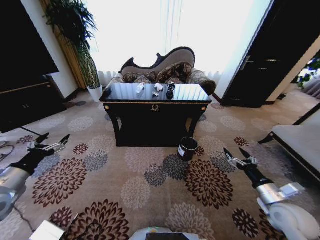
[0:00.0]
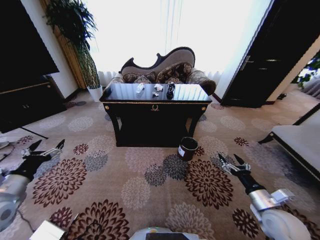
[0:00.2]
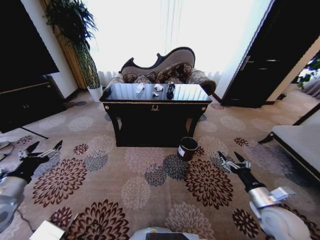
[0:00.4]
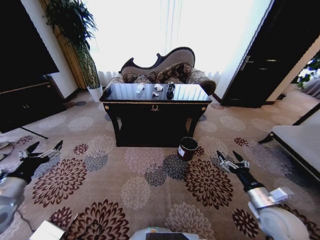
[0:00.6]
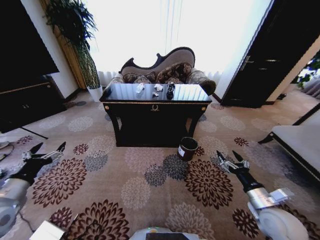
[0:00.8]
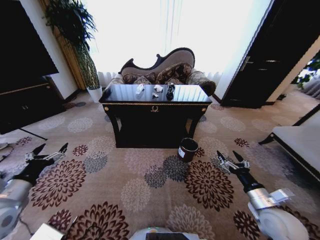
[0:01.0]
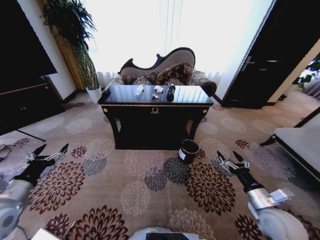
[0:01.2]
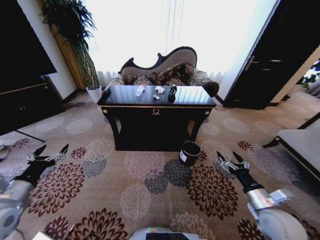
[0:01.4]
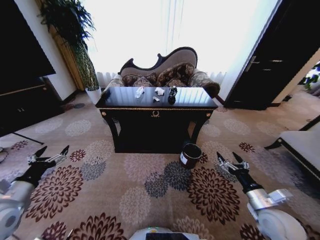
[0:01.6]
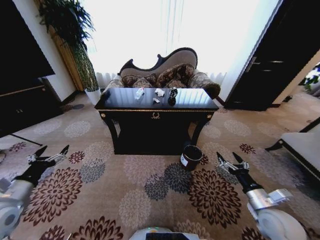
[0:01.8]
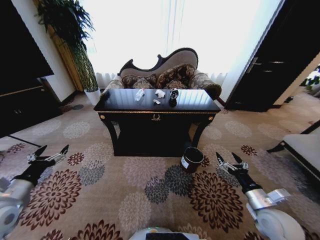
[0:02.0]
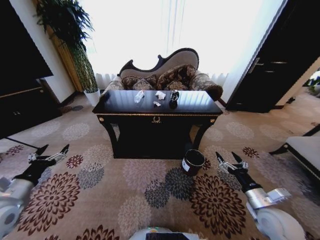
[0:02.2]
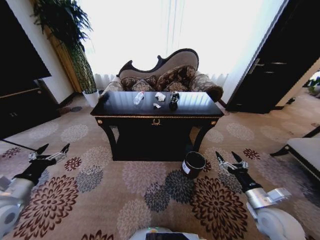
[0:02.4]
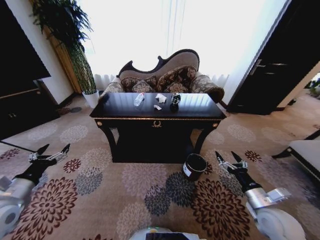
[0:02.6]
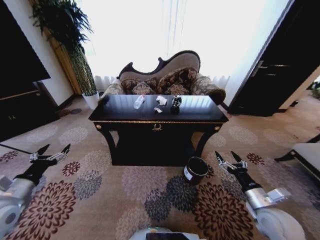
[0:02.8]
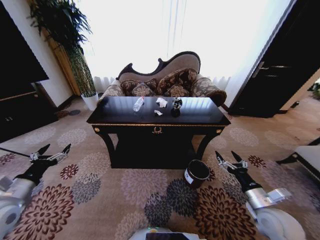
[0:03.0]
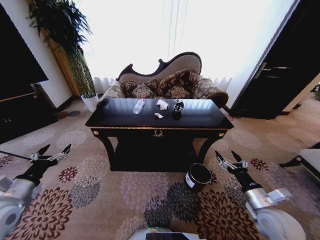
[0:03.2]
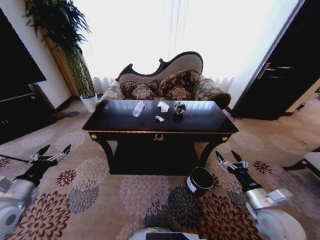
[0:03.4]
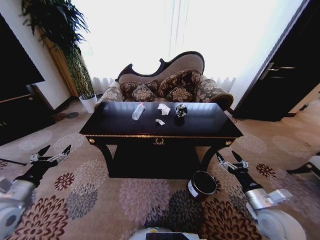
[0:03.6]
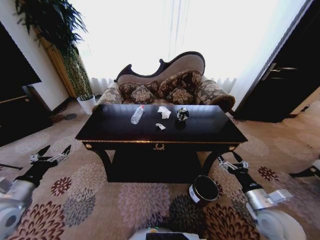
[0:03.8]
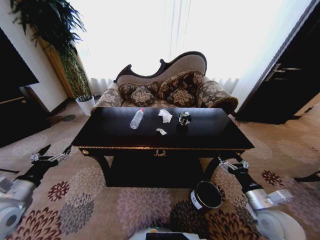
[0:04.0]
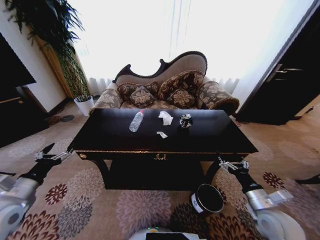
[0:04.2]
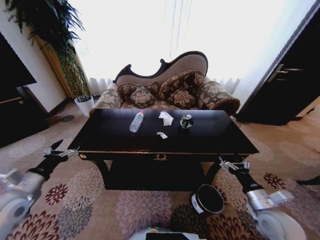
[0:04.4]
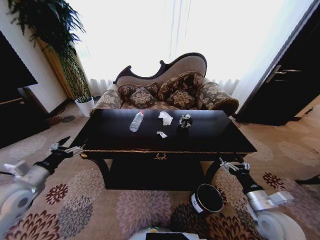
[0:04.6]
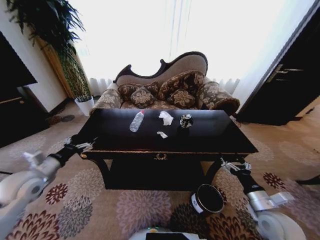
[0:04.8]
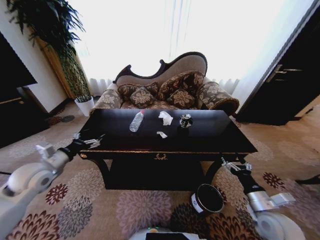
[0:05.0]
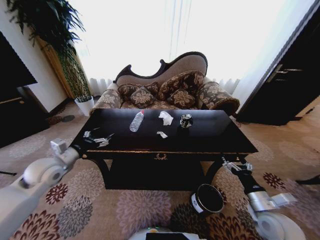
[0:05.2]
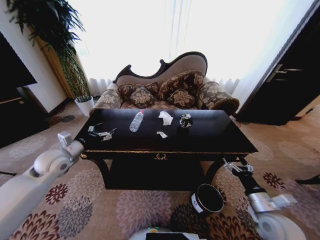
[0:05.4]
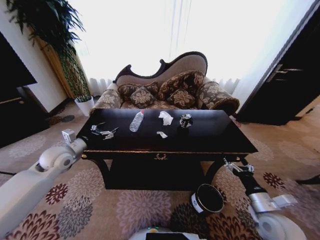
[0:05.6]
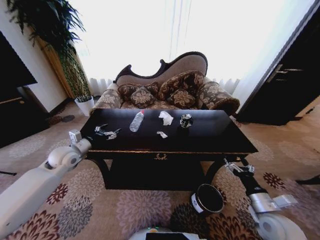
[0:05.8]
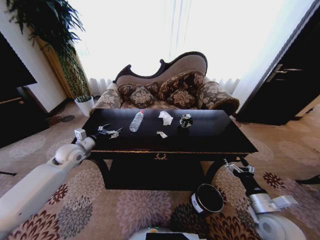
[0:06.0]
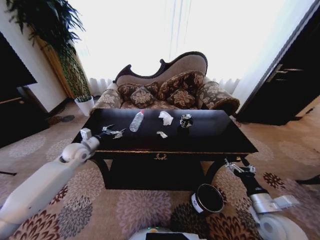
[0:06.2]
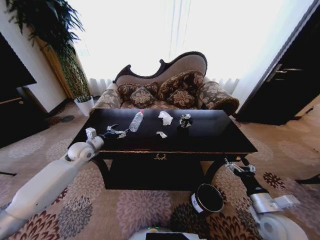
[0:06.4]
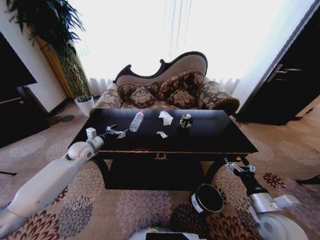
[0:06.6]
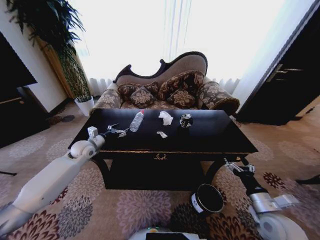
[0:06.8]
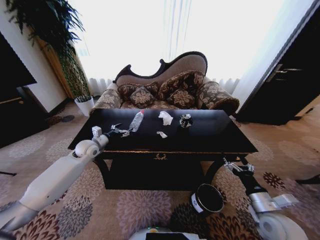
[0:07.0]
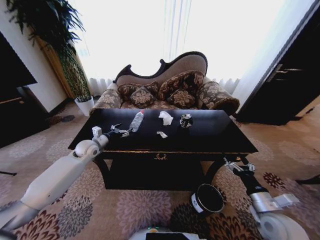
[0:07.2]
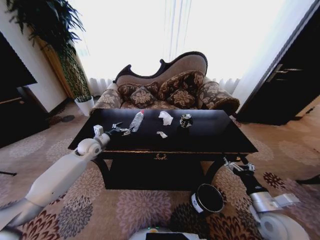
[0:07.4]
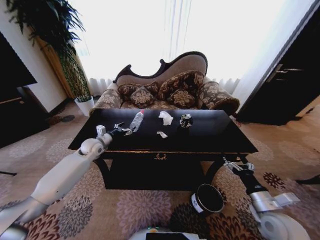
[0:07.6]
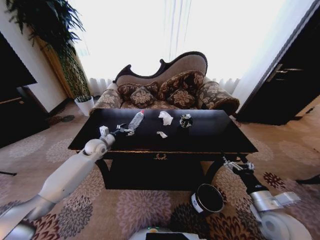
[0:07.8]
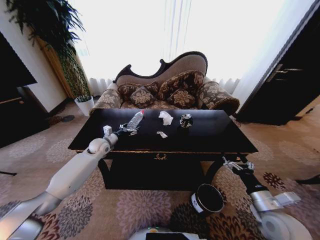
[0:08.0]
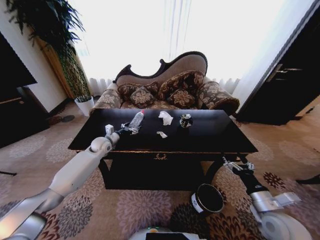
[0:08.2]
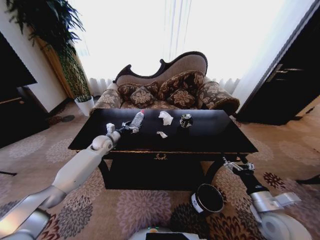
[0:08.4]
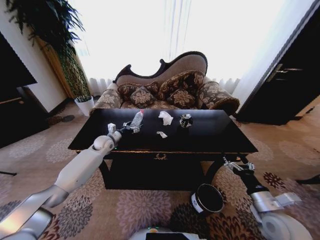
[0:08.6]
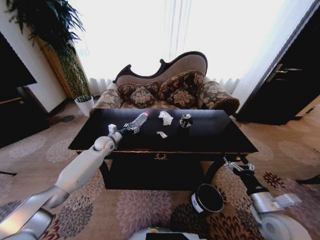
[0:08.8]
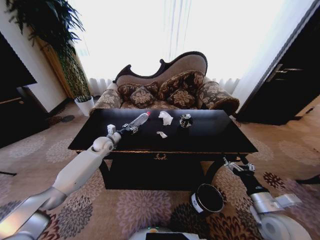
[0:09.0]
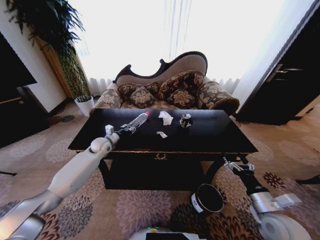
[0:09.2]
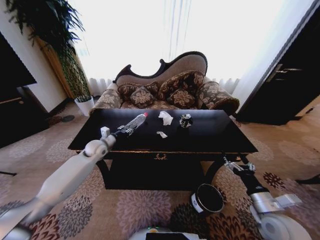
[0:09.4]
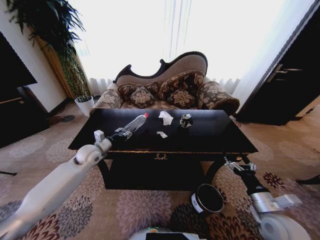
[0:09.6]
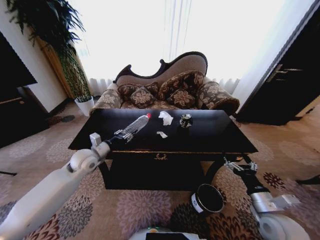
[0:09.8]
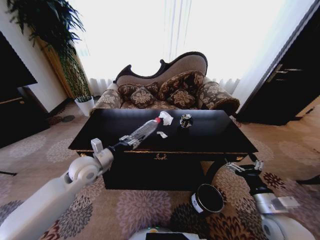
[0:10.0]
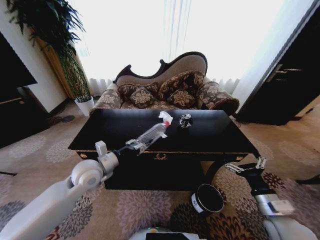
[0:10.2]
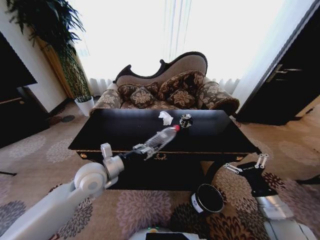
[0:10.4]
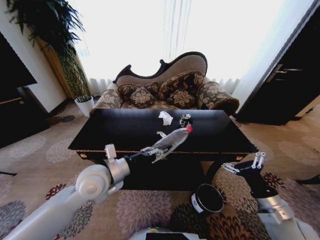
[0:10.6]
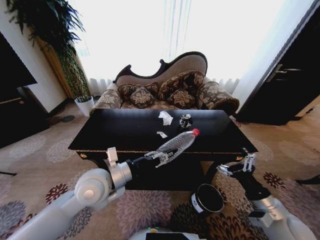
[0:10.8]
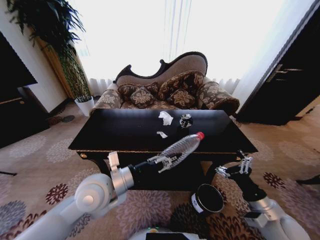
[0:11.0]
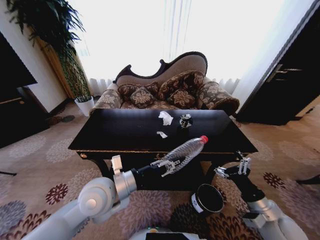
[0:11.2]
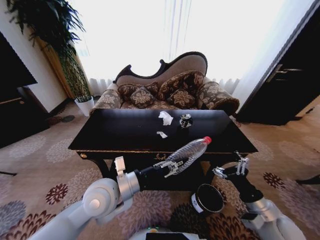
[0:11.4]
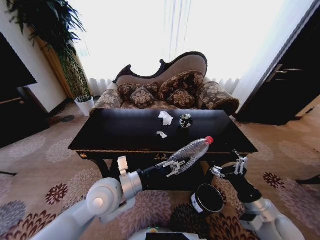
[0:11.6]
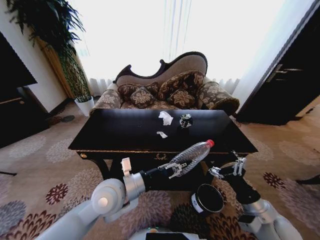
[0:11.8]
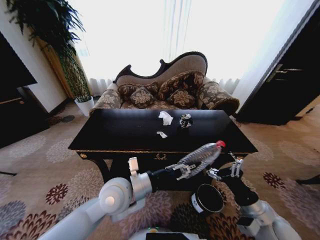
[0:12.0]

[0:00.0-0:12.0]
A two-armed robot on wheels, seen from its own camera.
Task of the whole recording: Move to the front of the table and place the trash on the table into the trash bin.
0:04.4 to 0:06.0: The left gripper moves forward, roughly 20 cm.
0:06.0 to 0:07.6: The left gripper travels forward and to the right by roughly 10 cm.
0:07.6 to 0:09.0: The left gripper changes place by about 5 cm, and closes up.
0:09.0 to 0:10.4: The left gripper shifts some 25 cm backward and upward.
0:10.4 to 0:12.0: The left gripper shifts approximately 10 cm to the right and backward.

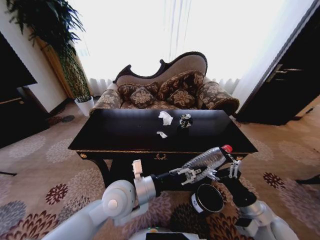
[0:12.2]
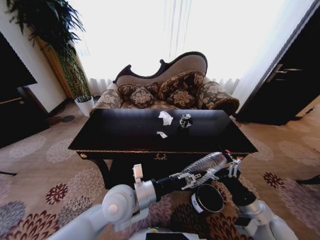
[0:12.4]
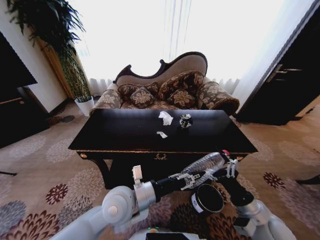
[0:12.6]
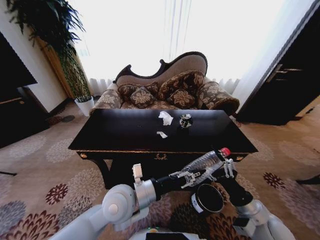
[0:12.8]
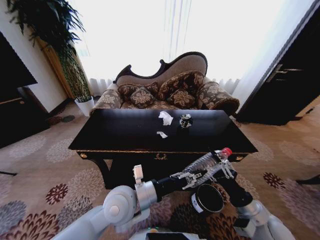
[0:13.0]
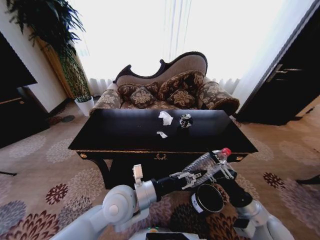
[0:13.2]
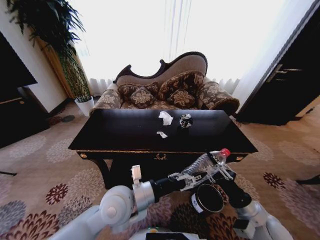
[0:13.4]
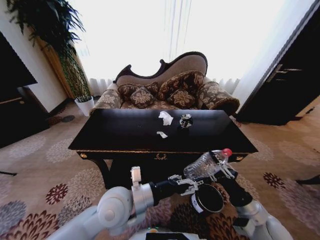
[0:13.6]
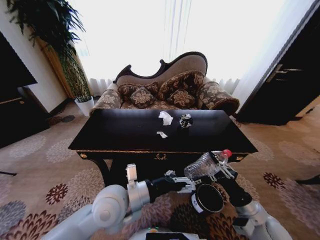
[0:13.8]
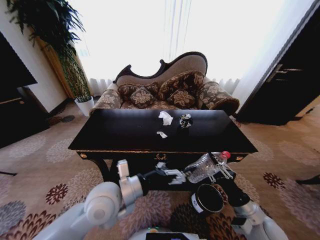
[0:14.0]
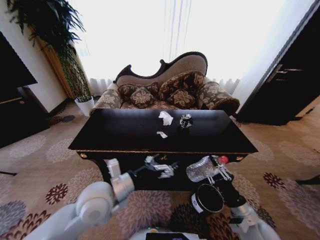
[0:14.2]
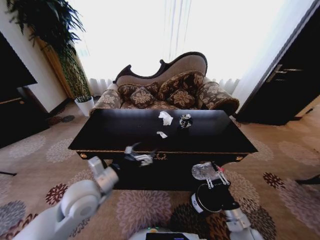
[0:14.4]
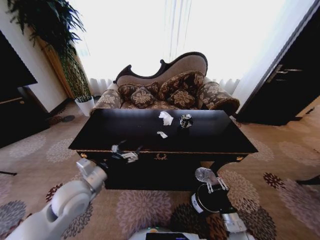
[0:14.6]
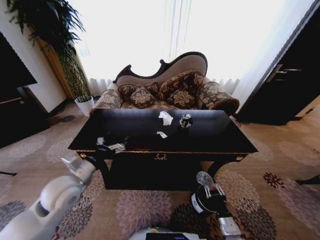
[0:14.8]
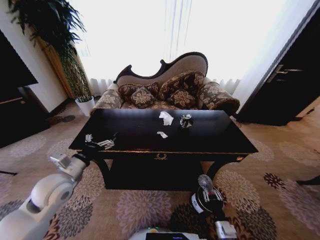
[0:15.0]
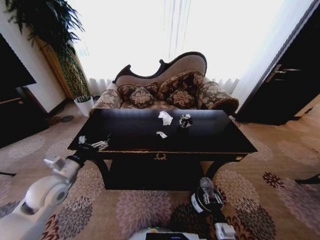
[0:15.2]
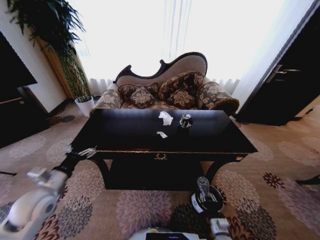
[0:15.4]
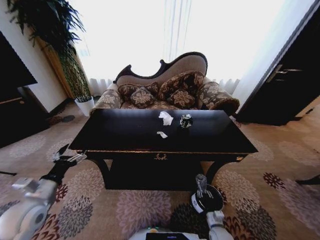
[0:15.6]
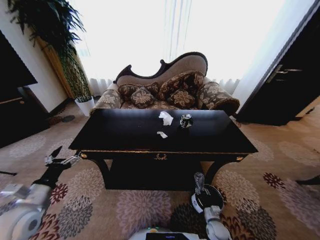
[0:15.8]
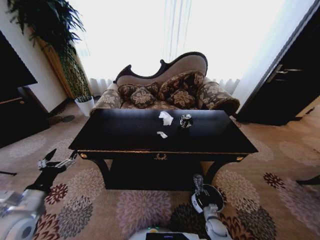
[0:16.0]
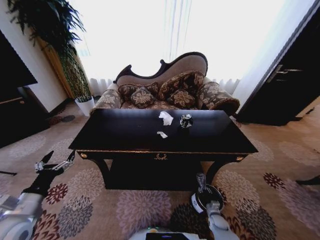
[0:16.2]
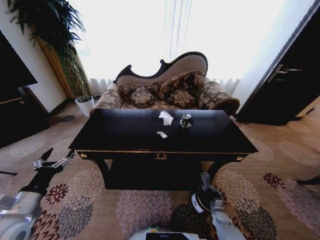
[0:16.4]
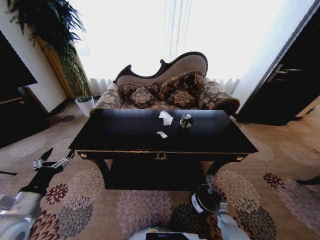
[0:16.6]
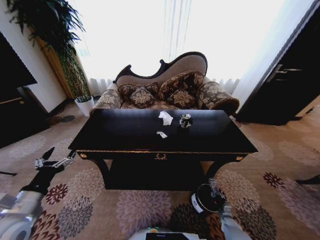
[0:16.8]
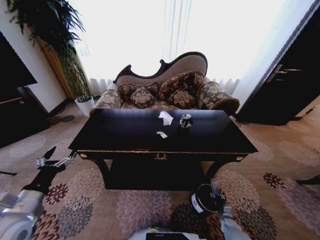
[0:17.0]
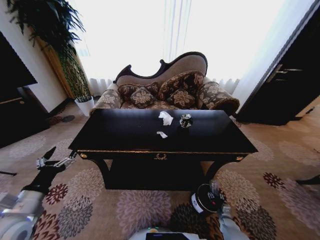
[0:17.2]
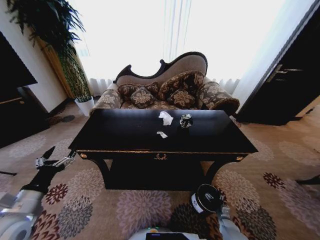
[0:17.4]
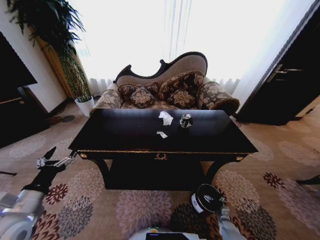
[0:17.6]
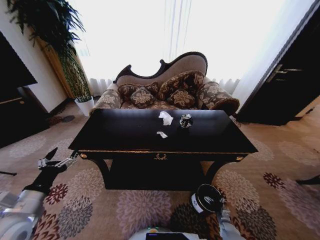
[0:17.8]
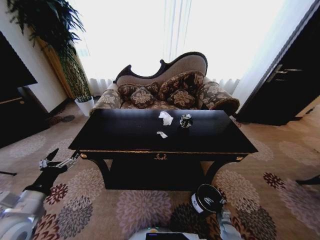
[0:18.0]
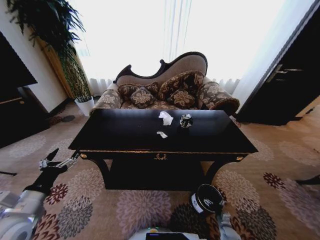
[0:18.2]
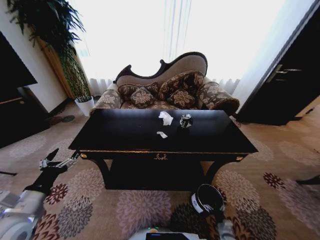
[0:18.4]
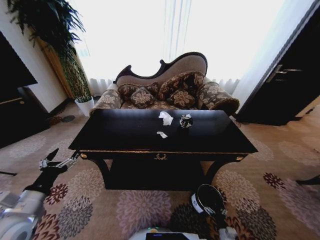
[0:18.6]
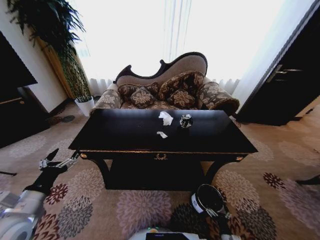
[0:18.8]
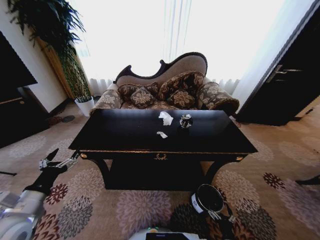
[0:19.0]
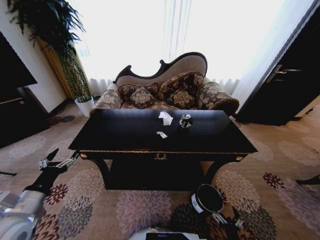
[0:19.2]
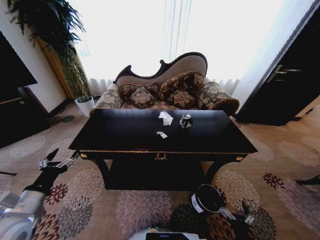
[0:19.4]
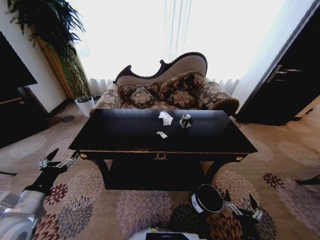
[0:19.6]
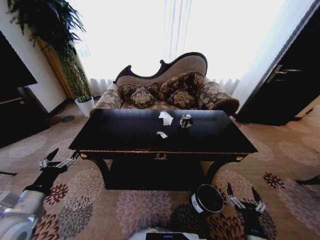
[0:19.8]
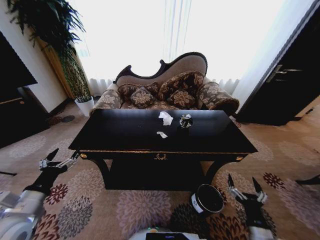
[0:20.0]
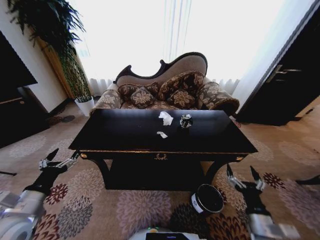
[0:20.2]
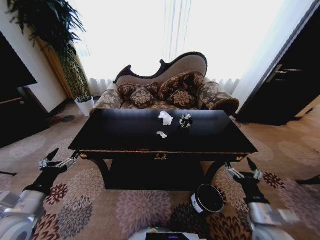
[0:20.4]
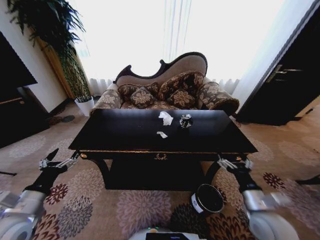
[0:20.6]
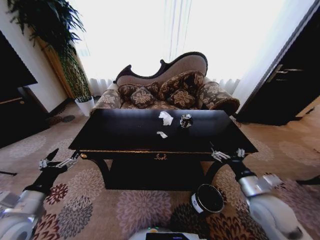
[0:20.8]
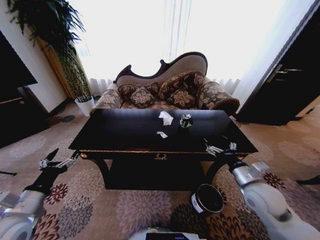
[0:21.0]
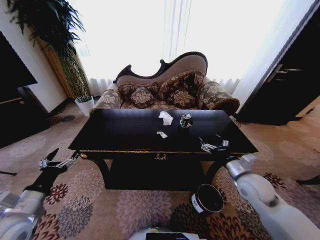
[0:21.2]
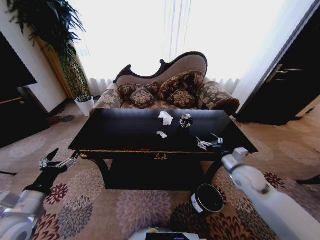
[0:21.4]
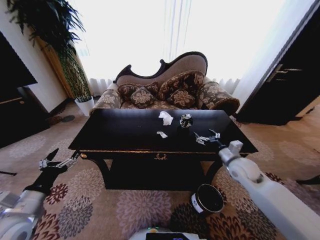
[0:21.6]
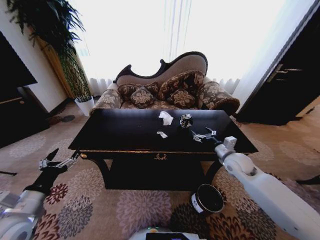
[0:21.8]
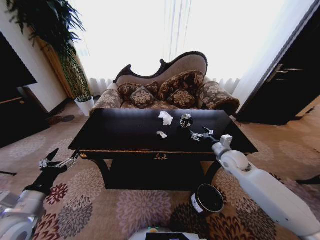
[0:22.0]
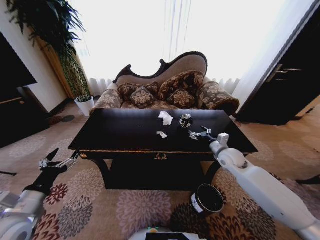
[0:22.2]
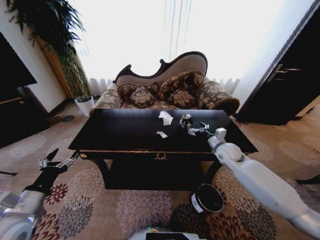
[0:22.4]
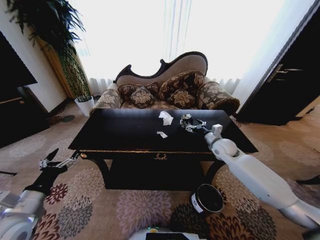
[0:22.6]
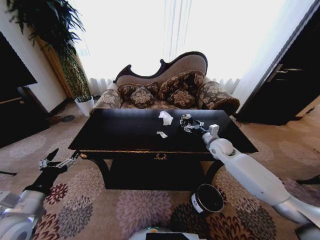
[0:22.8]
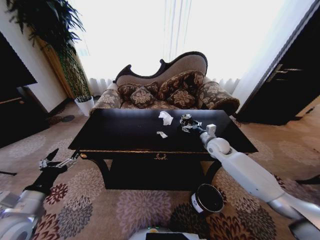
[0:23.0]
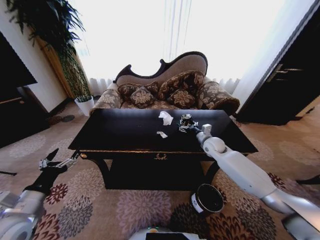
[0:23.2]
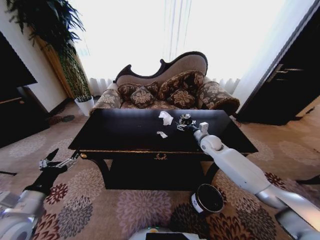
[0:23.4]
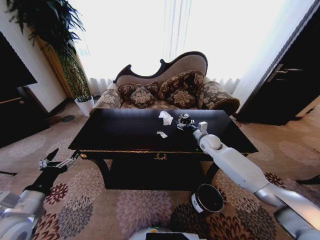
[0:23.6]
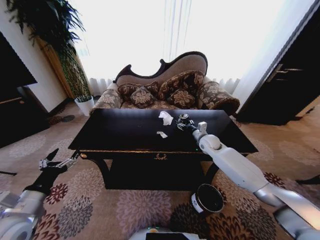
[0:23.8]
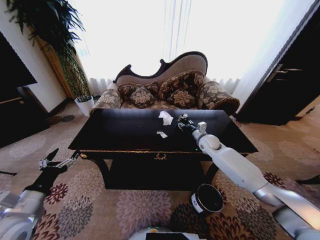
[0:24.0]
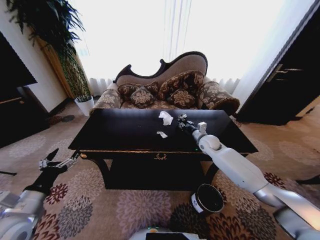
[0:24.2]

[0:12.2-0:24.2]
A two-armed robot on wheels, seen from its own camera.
Task of the whole recording: Move to the front of the table and place the trash on the table into the trash bin.
0:12.2 to 0:13.8: The right gripper closes its fingers. The left gripper opens up.
0:13.8 to 0:15.2: The right gripper shifts about 20 cm downward. The left gripper heads to the left, covering approximately 20 cm.
0:15.2 to 0:16.6: The left gripper goes approximately 10 cm backward and to the left. The right gripper is displaced downward, forward and to the right by roughly 25 cm.
0:16.6 to 0:18.2: The right gripper shifts roughly 5 cm backward, and opens up.
0:18.2 to 0:19.8: The right gripper moves upward and backward, approximately 30 cm.
0:19.8 to 0:21.2: The right gripper heads forward and upward, covering about 25 cm.
0:21.2 to 0:22.6: The right gripper is displaced forward by about 15 cm.
0:22.6 to 0:24.2: The right gripper heads forward, covering some 5 cm, and closes its fingers.
